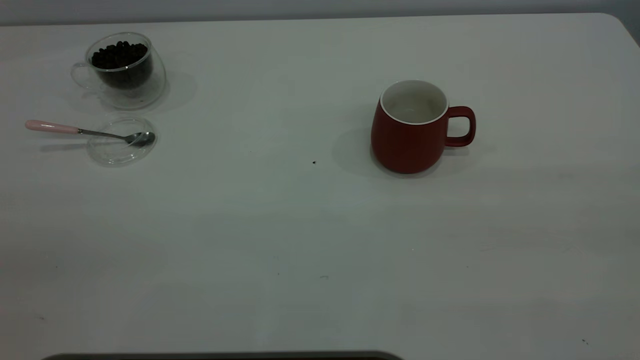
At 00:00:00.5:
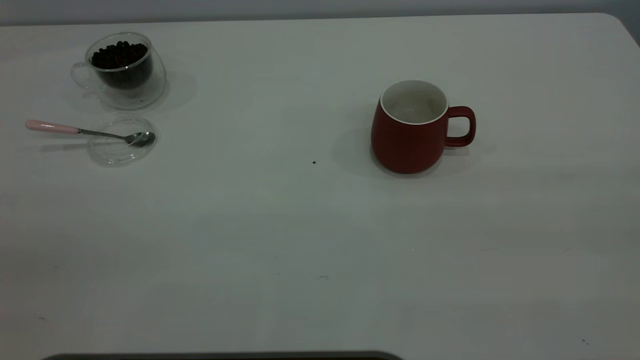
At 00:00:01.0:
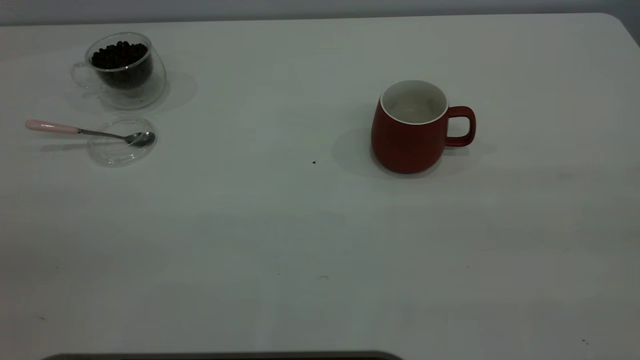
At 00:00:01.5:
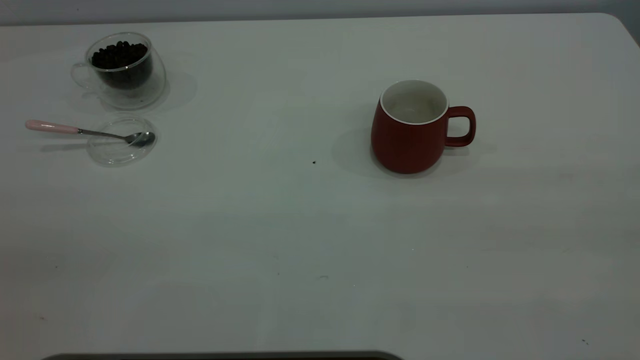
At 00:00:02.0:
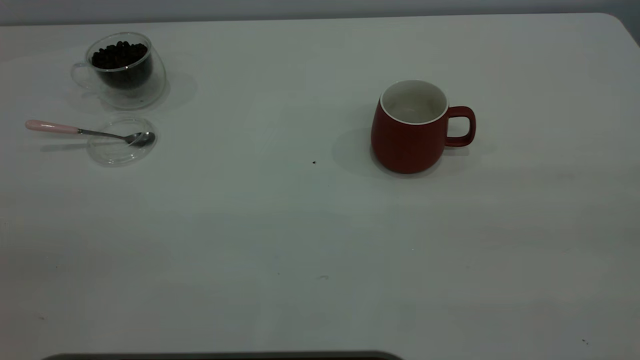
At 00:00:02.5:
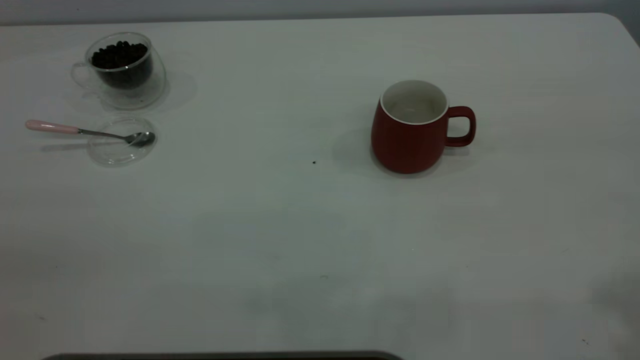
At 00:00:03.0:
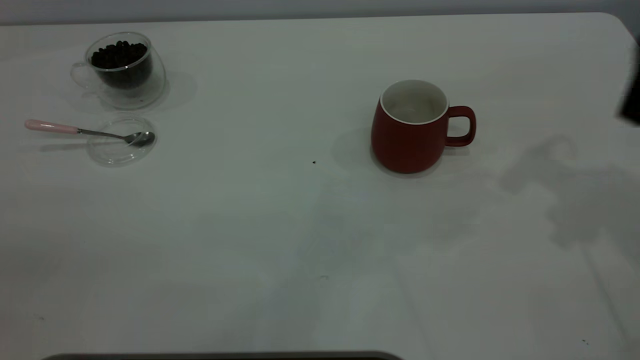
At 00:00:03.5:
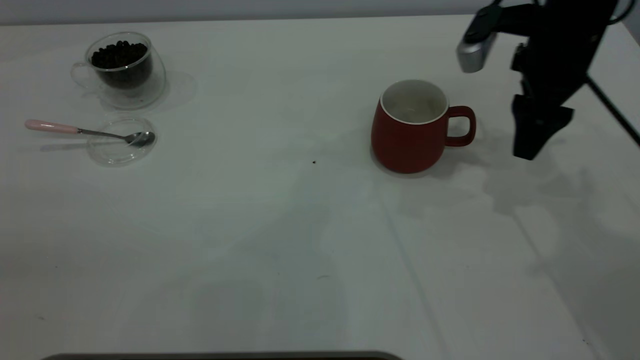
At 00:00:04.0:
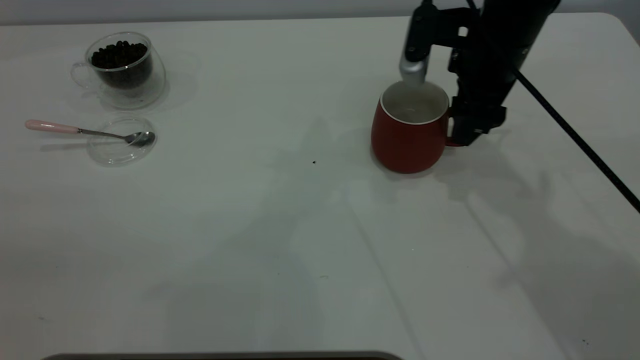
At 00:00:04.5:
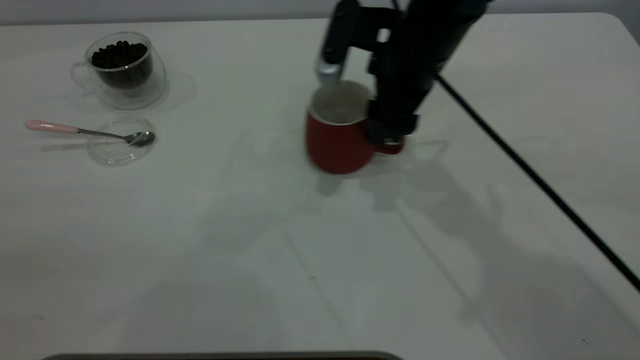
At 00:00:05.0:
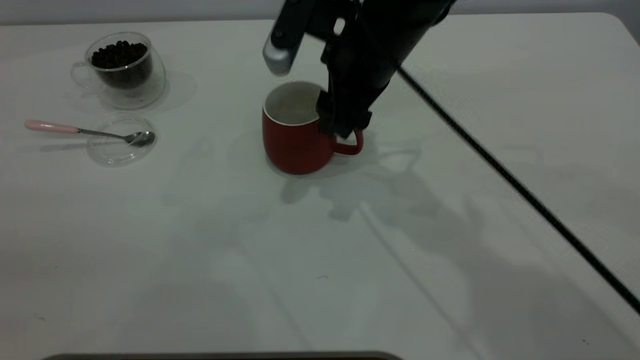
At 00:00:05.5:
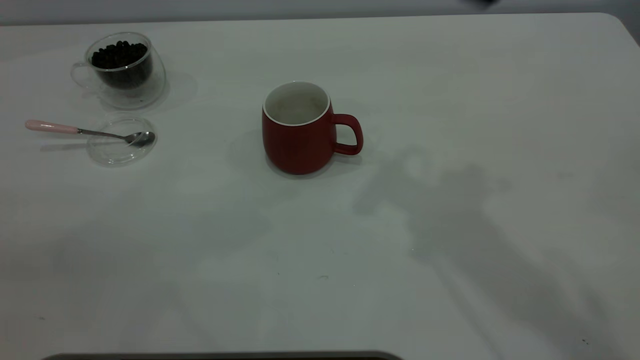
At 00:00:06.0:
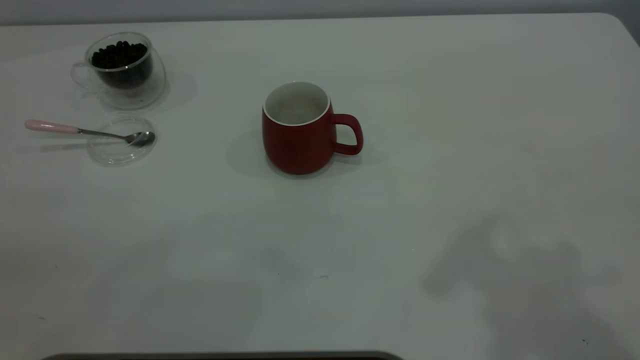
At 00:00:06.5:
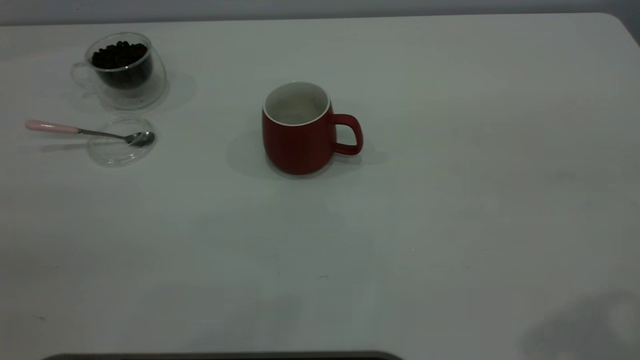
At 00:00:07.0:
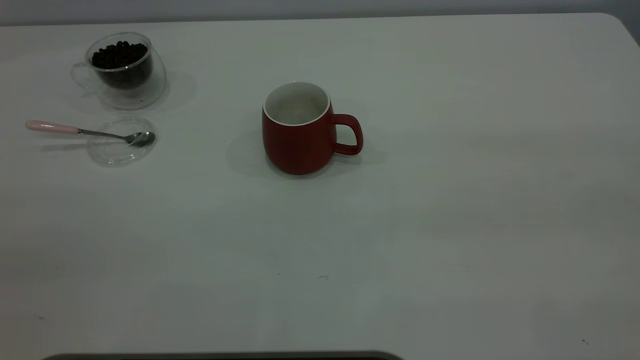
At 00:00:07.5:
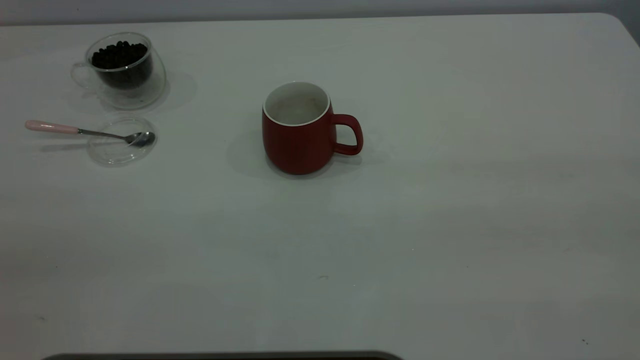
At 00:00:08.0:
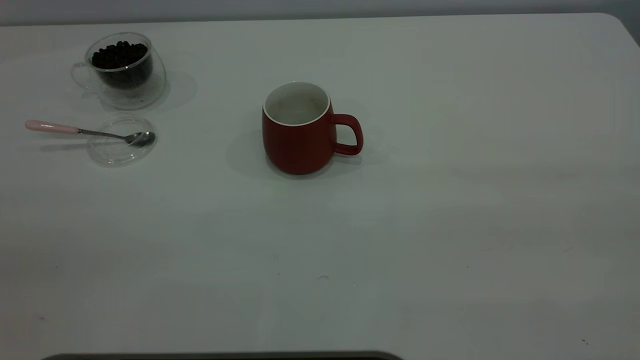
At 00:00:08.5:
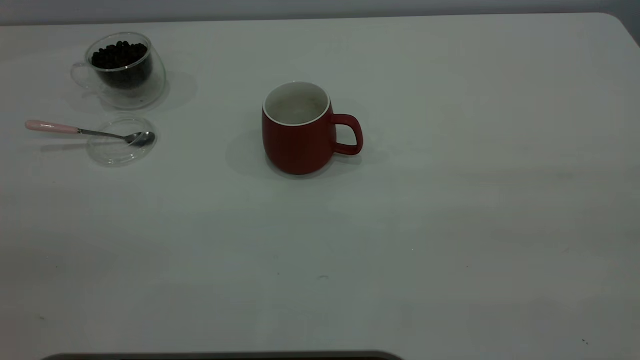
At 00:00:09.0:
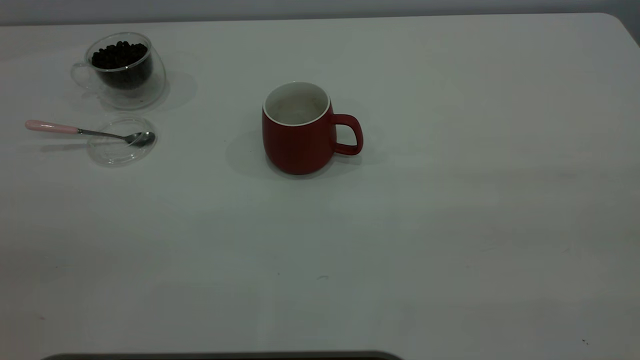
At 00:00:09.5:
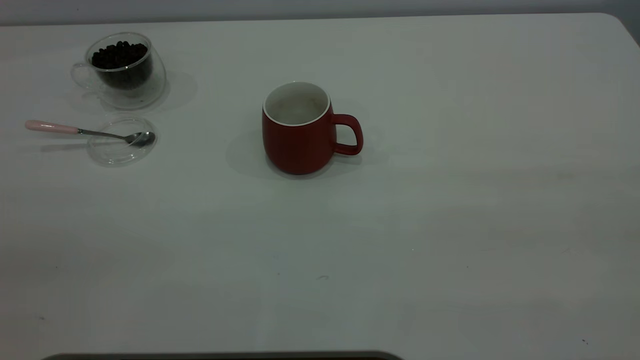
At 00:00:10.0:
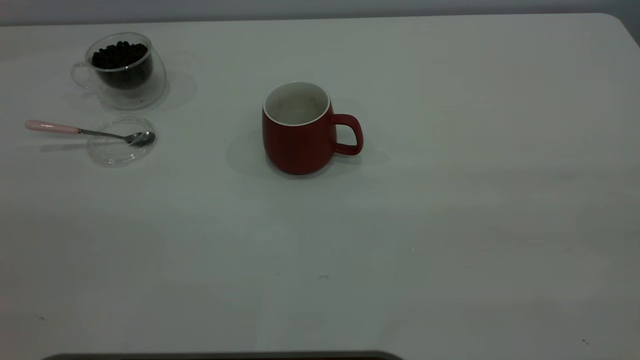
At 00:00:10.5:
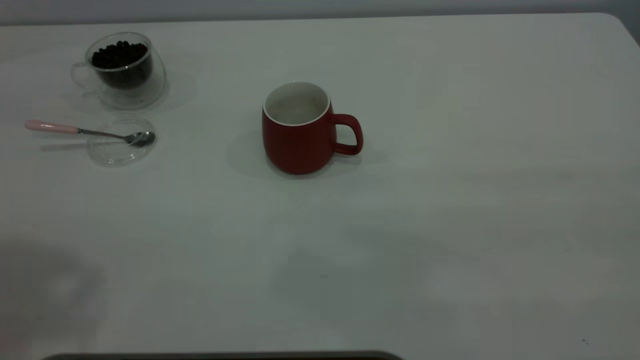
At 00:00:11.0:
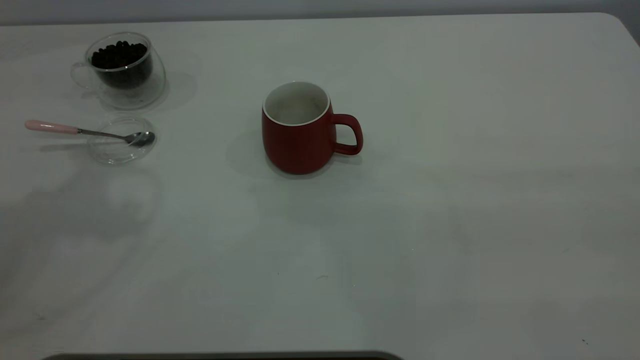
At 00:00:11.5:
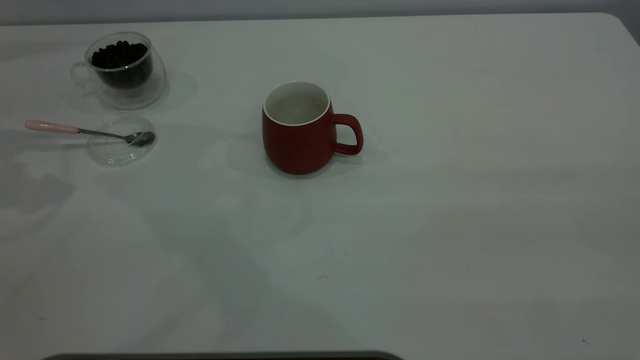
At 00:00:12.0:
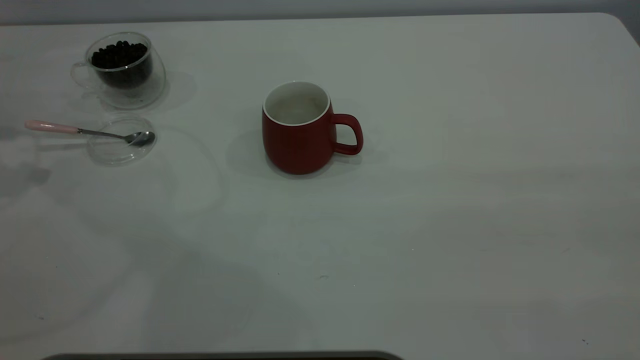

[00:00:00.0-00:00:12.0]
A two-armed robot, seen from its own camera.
Task of the whole recording: the right gripper place the red cup in the center of the table, the left gripper take the pink spoon from the cup lid and scoop out the coffee beans from the coffee cup and put them into the red cup, the left gripper put the spoon back into the cup lid.
Step, 00:00:00.0 to 00:00:05.0: Move the cup to the center of view.
00:00:00.0 to 00:00:02.0: Both grippers stay put.
00:00:02.0 to 00:00:04.0: The right gripper shifts approximately 50 cm forward and downward.
00:00:04.0 to 00:00:06.0: The right gripper moves upward and backward, some 35 cm.

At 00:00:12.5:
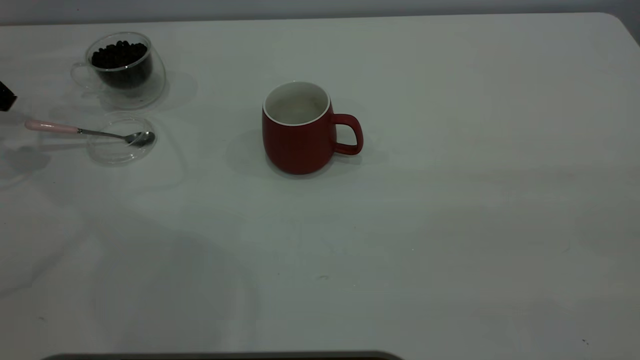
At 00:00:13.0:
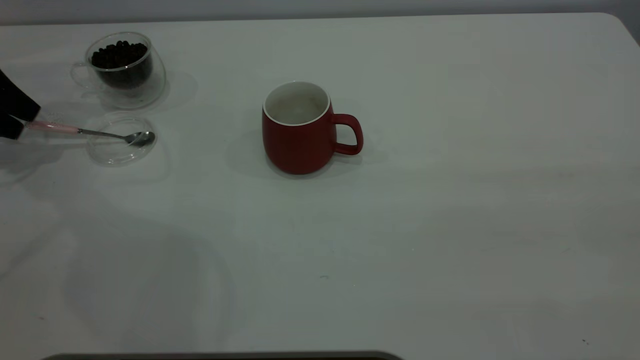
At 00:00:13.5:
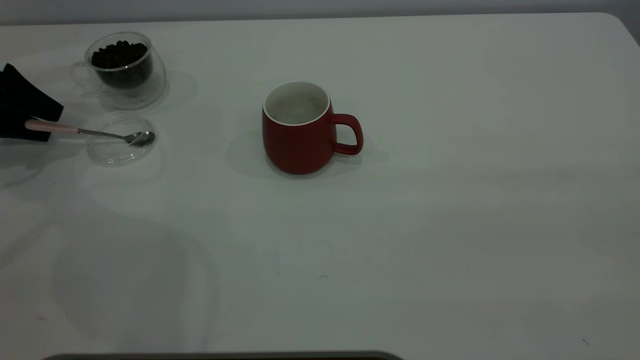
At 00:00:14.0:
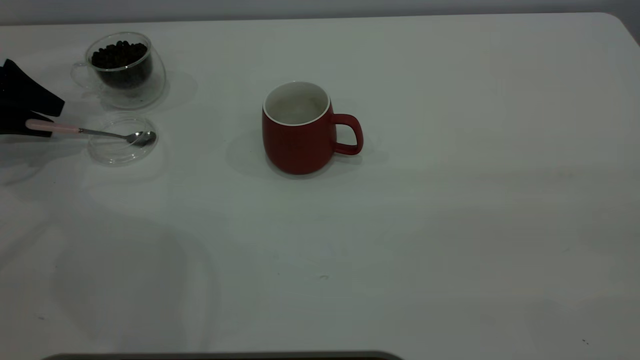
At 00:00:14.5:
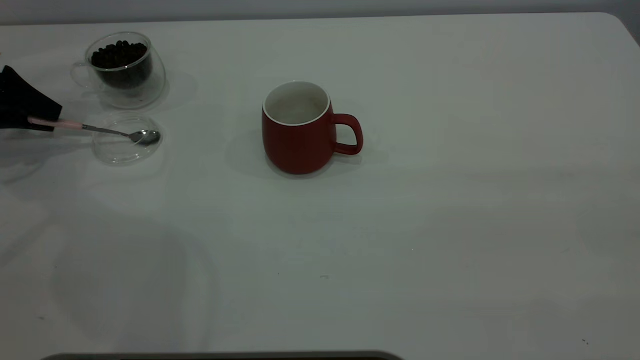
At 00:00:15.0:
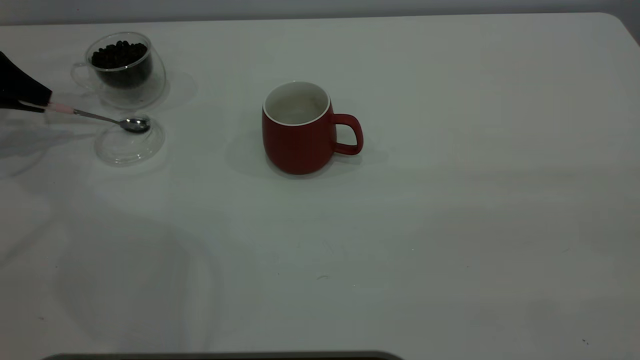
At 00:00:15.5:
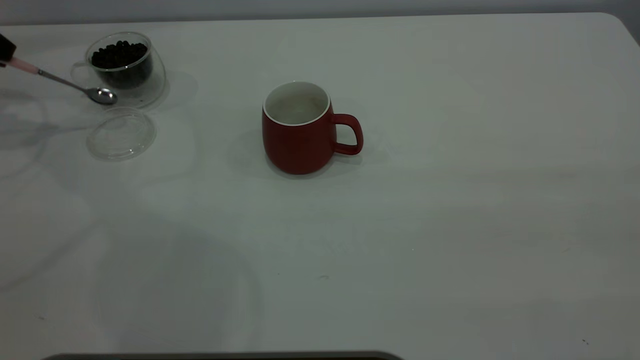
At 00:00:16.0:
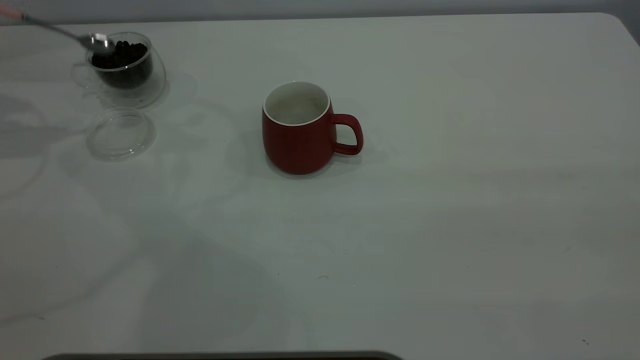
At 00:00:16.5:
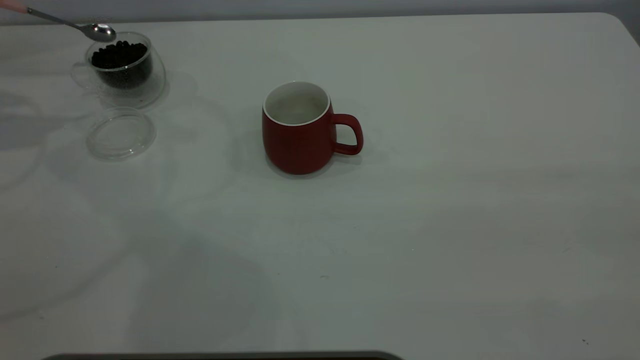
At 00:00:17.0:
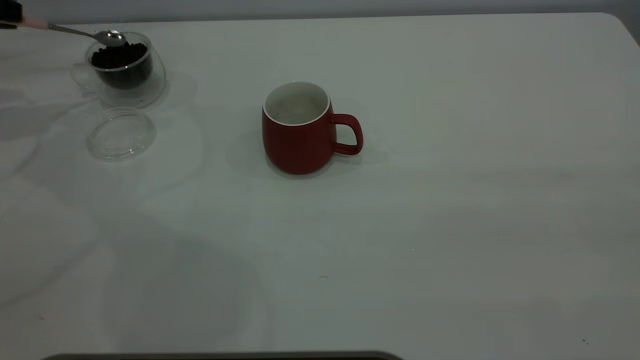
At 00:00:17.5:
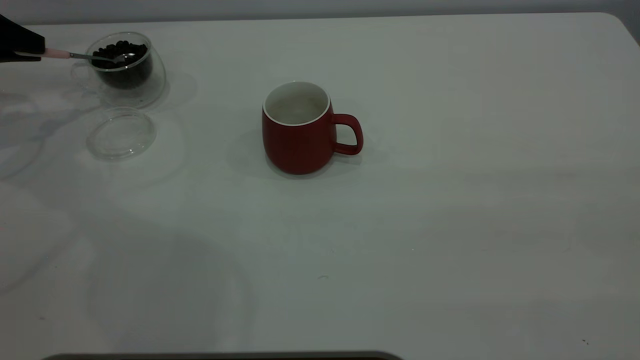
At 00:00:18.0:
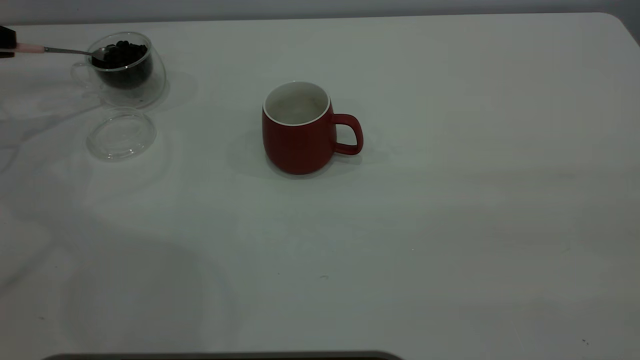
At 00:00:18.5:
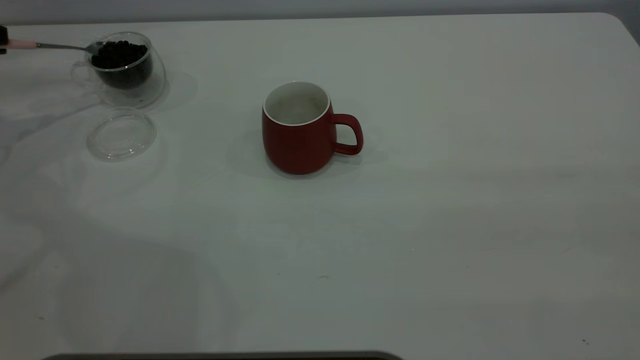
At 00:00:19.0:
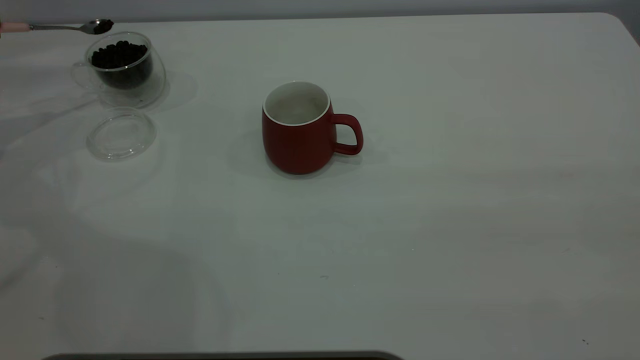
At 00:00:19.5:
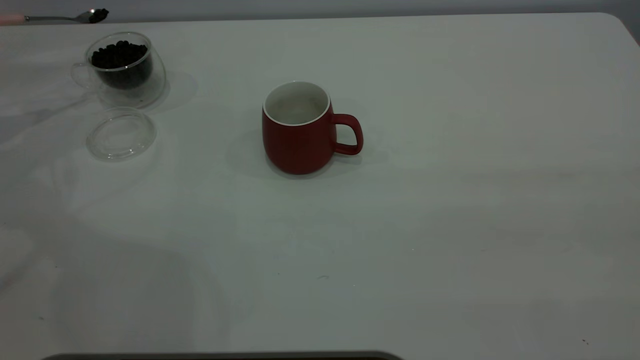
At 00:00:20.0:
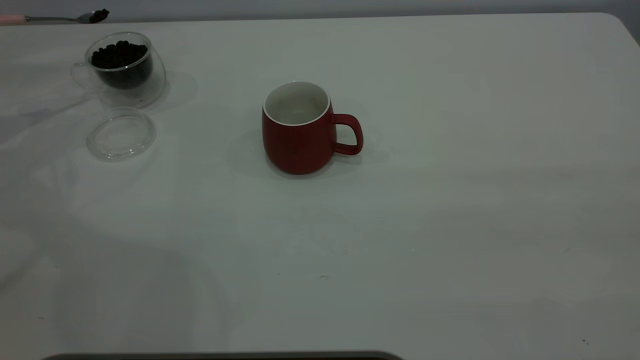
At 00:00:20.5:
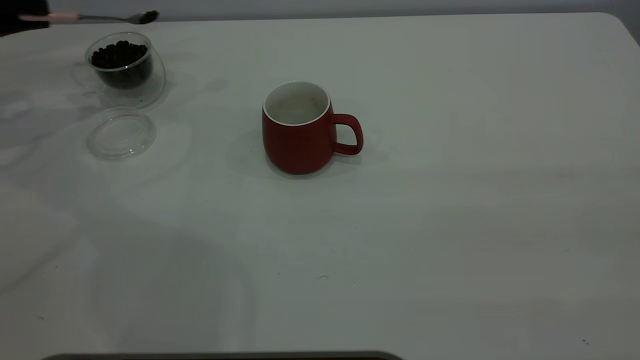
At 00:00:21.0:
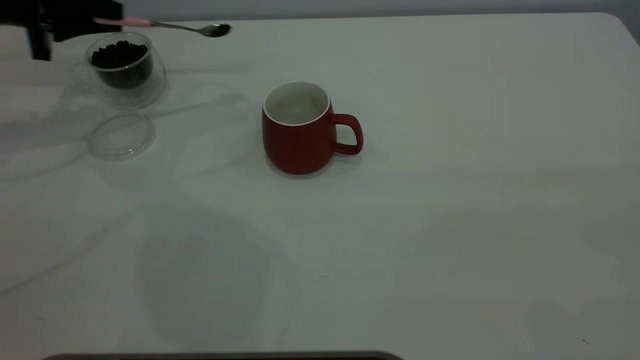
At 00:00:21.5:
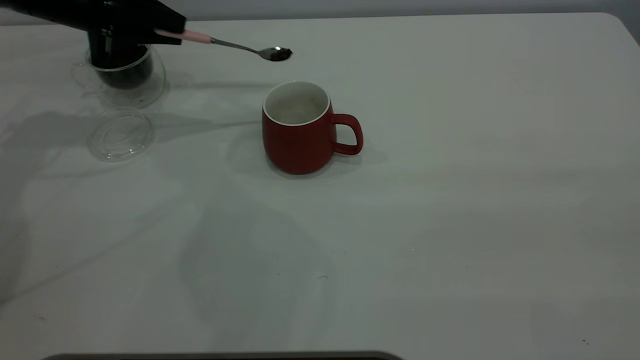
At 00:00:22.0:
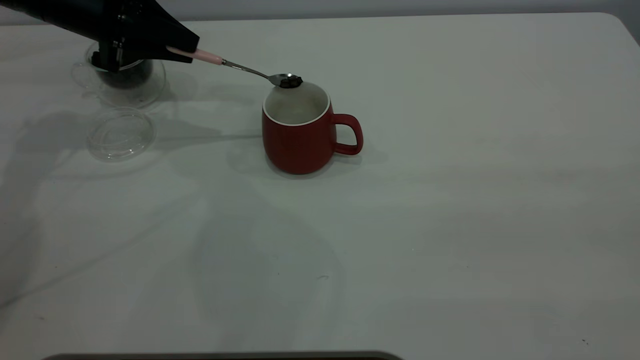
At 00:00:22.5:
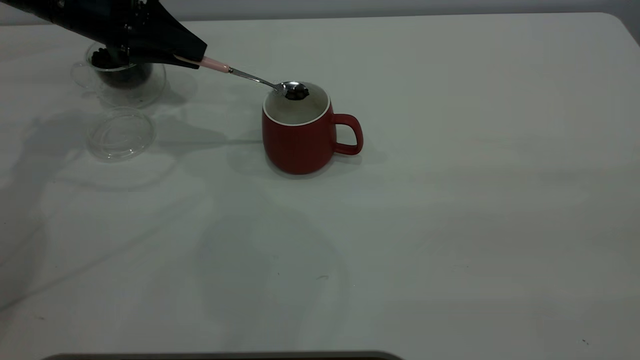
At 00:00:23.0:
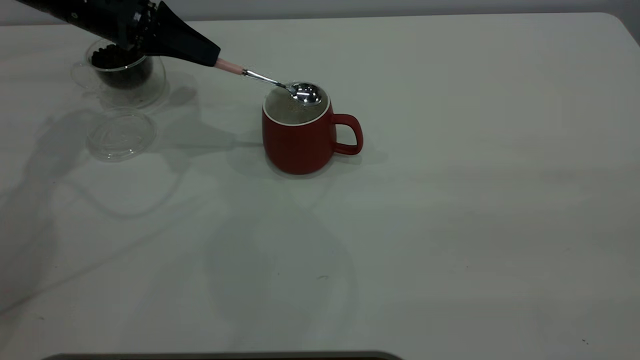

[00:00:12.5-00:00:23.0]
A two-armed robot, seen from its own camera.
Task of the whole recording: the right gripper place the red cup in the center of the table, the left gripper take the pink spoon from the cup lid and scoop out the coffee beans from the coffee cup and put them into the red cup, the left gripper put the spoon back into the cup lid.
Step, 00:00:12.5 to 00:00:16.0: Pick up the spoon.
00:00:12.5 to 00:00:14.5: The left gripper is displaced downward by about 5 cm, and closes its fingers.
00:00:14.5 to 00:00:16.5: The left gripper shifts some 15 cm upward.
00:00:19.0 to 00:00:21.0: The left gripper travels to the right by roughly 15 cm.
00:00:21.0 to 00:00:23.0: The left gripper goes about 10 cm to the right.
